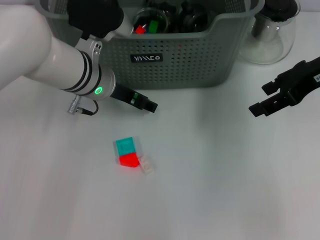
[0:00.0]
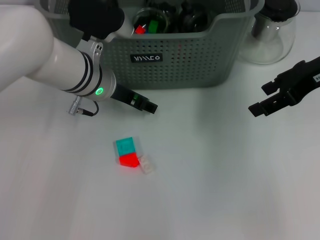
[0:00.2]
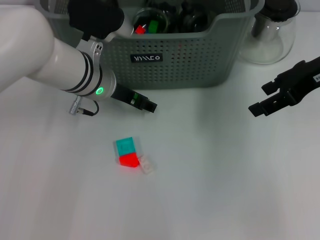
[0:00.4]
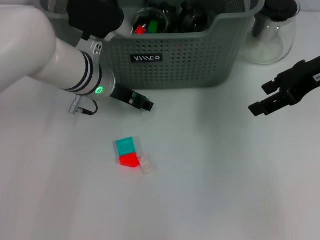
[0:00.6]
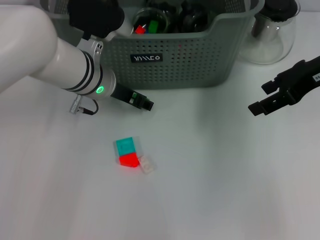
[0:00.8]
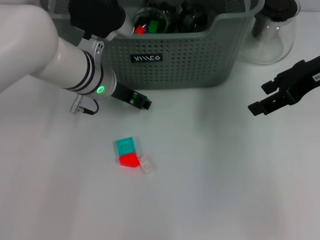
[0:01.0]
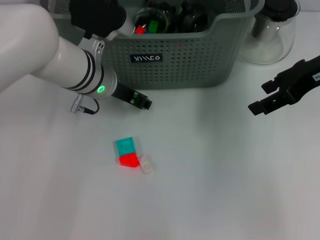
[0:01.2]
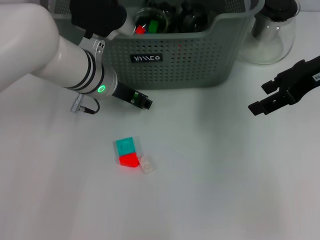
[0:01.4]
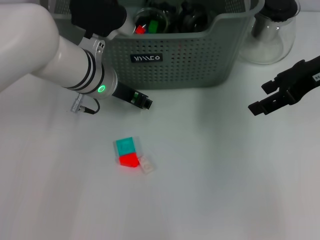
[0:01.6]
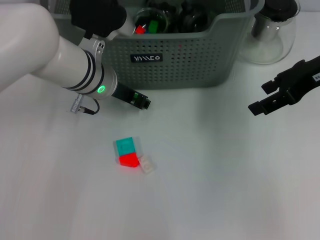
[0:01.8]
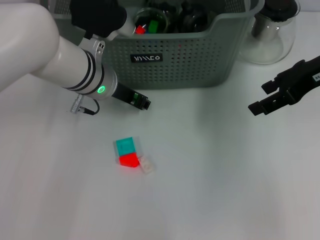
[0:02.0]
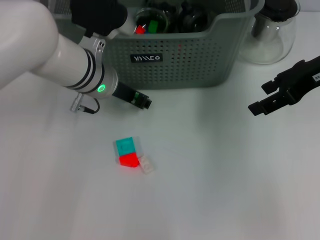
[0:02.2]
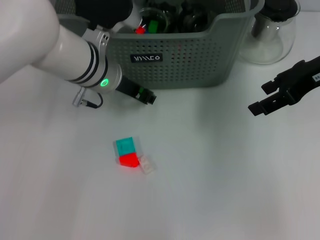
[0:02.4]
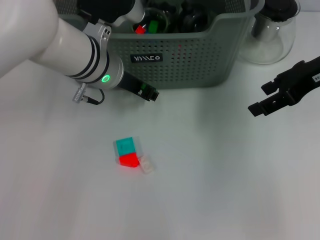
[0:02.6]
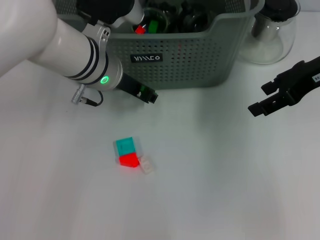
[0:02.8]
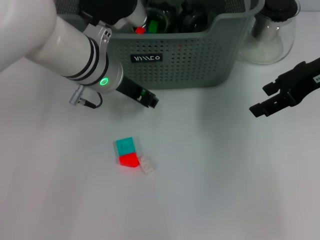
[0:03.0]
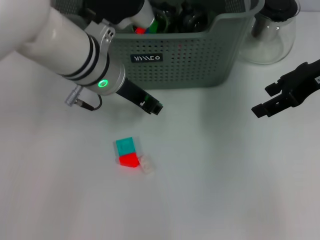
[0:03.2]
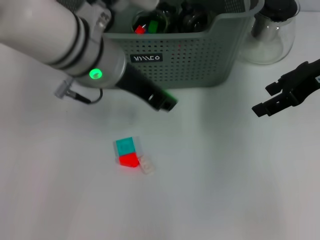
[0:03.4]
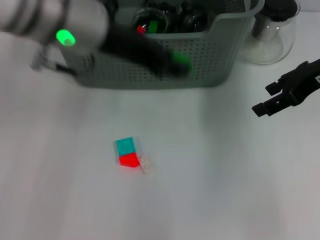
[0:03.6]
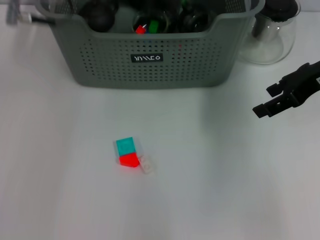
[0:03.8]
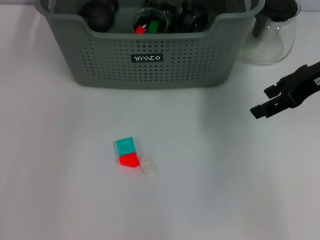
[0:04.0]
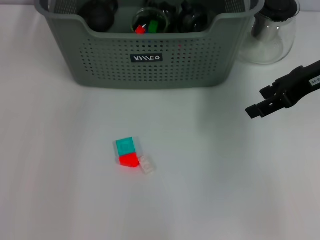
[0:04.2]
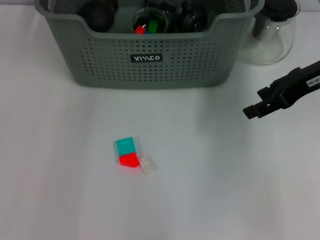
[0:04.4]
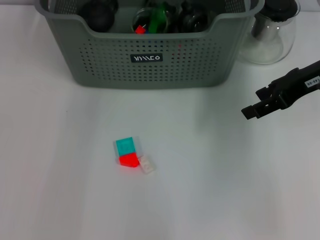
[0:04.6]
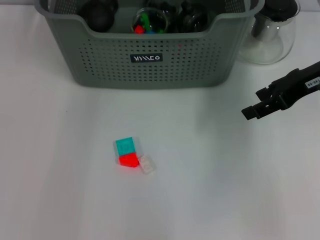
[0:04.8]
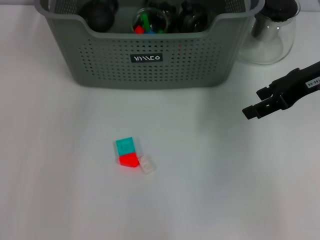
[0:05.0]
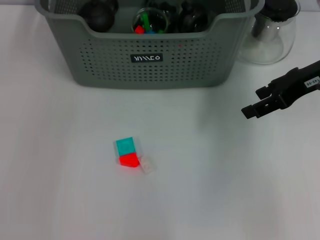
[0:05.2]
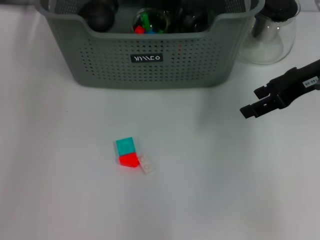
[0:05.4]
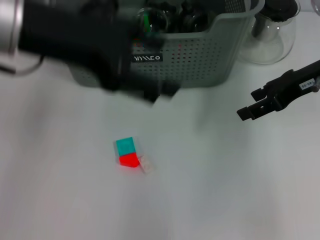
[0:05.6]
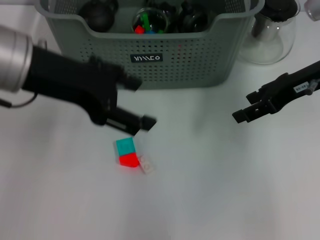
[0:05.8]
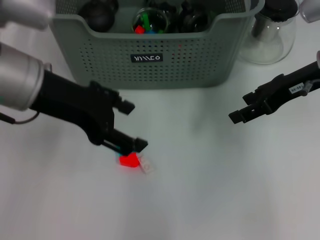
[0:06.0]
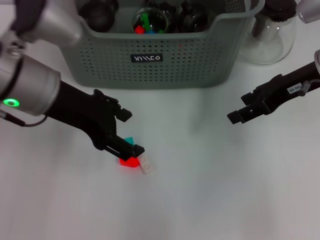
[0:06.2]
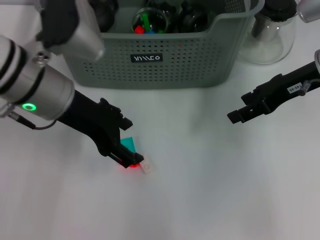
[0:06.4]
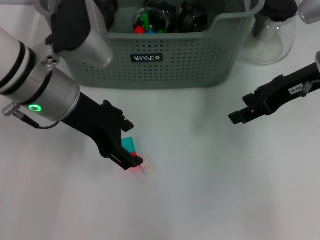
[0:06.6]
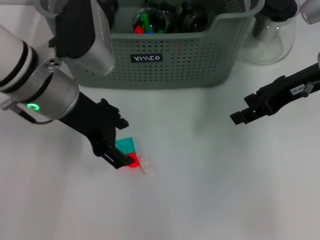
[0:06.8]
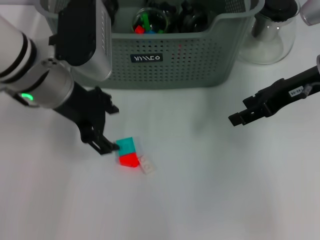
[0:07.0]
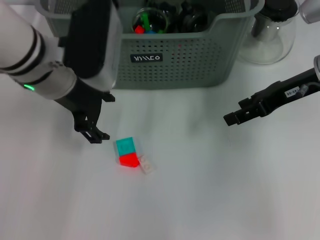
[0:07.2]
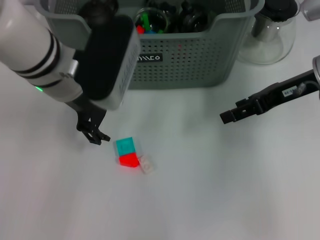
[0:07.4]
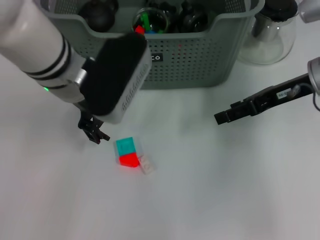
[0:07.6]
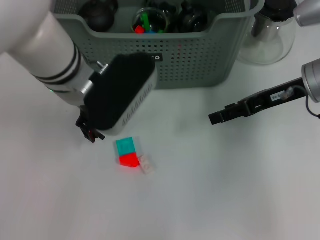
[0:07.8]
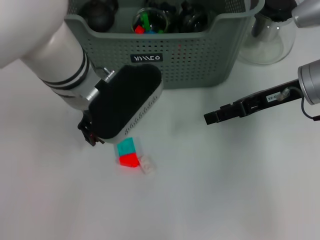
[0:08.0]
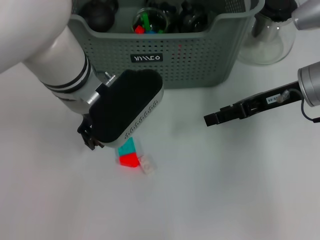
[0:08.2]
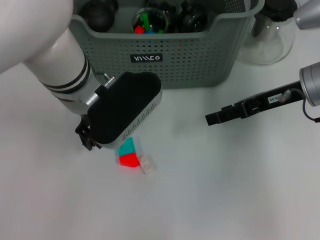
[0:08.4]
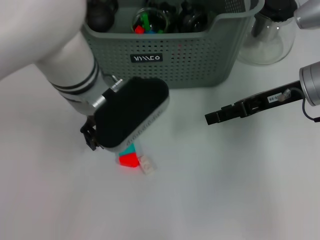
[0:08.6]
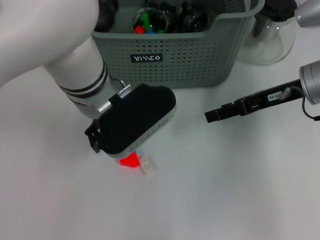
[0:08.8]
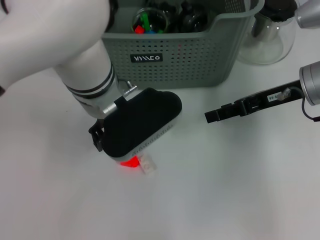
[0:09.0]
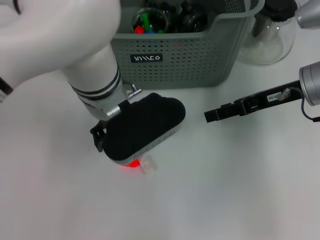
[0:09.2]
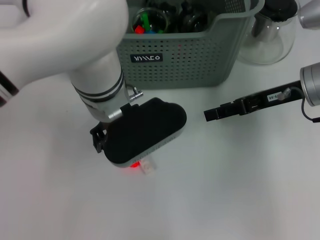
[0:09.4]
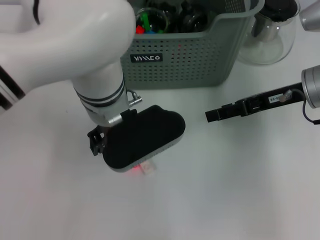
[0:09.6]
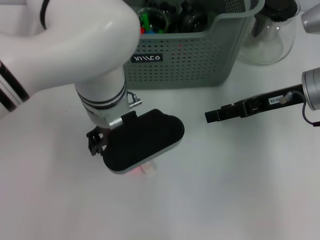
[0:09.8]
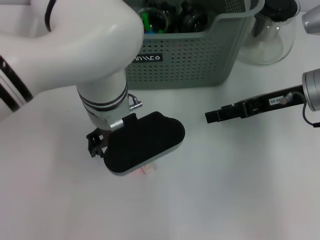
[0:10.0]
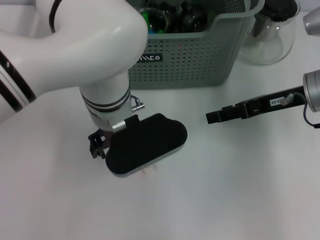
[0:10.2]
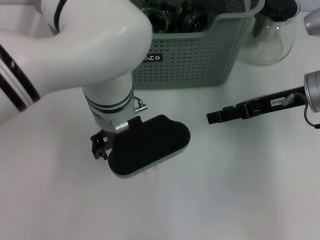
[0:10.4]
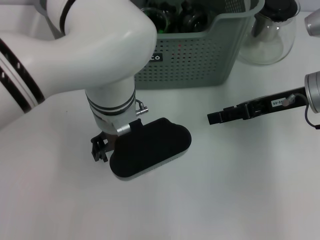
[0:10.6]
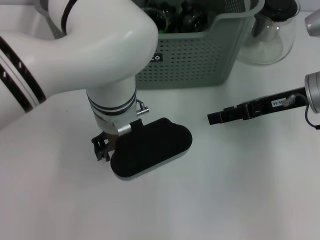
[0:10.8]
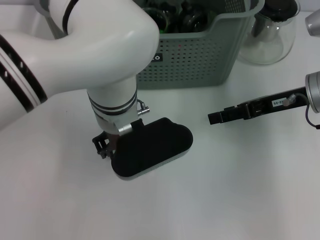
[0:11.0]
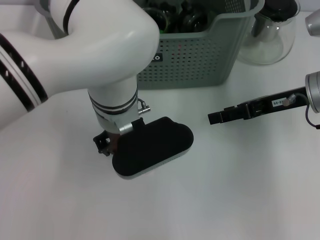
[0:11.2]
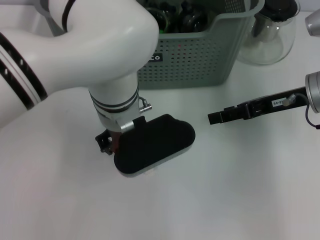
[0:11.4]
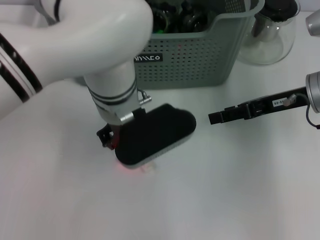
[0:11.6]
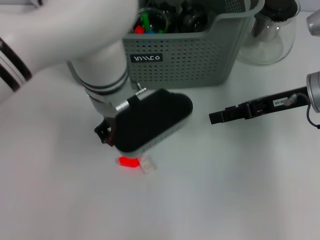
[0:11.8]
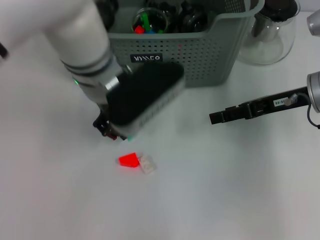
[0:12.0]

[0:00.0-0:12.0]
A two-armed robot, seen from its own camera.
Task of the whole recording: pick up the teacup on the table and place it into the storage bin, pick up the block on the table and place it into the storage bin.
Step, 0:02.0 to 0:04.6: Place the green block in the storage box with left gripper.
Step, 0:04.8 to 0:11.0: Grasp the light blue block with left gripper.
0:00.0 to 0:01.6: The left gripper closes.
0:01.6 to 0:03.0: The grippers move only a little.
0:03.0 to 0:04.4: The left gripper moves upward and forward, some 15 cm.
0:04.4 to 0:06.0: The left gripper is displaced backward by some 15 cm, and opens.
0:06.0 to 0:07.6: The left gripper shifts roughly 5 cm to the right.
0:10.4 to 0:12.0: The left gripper closes.

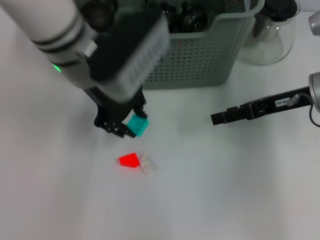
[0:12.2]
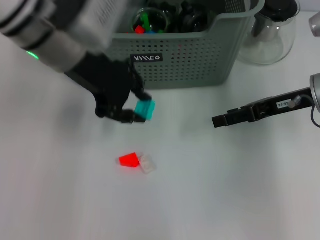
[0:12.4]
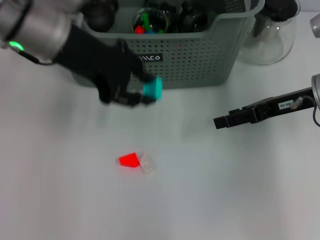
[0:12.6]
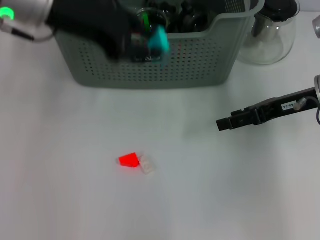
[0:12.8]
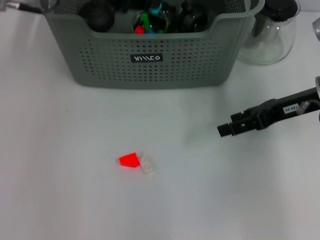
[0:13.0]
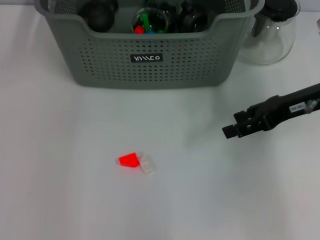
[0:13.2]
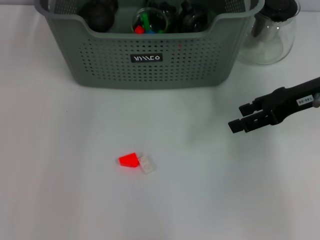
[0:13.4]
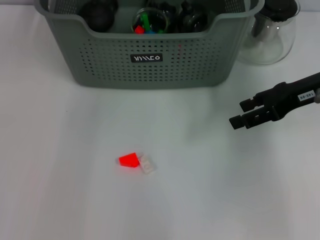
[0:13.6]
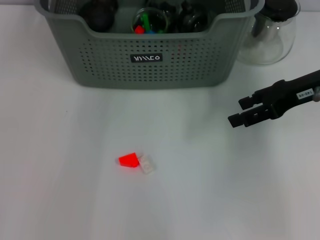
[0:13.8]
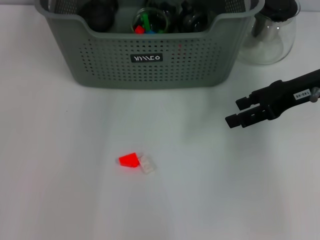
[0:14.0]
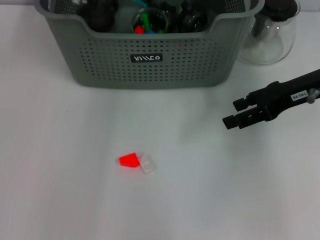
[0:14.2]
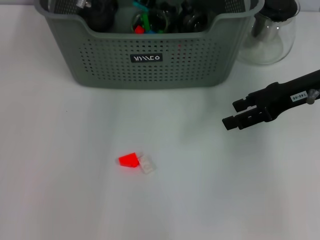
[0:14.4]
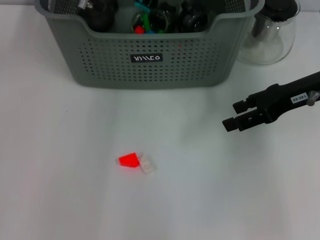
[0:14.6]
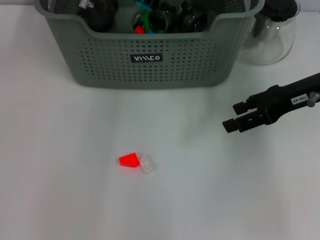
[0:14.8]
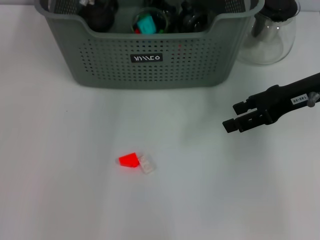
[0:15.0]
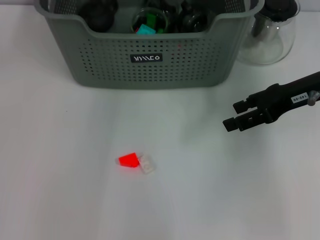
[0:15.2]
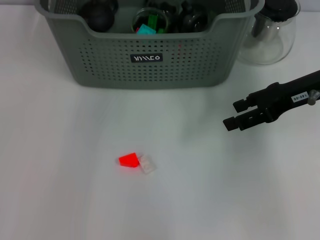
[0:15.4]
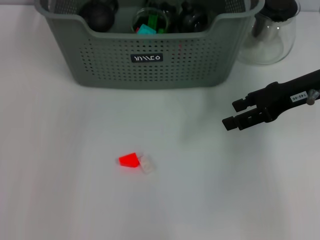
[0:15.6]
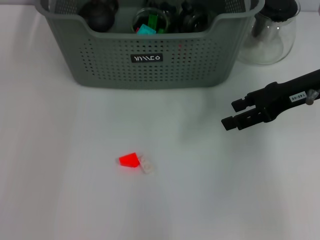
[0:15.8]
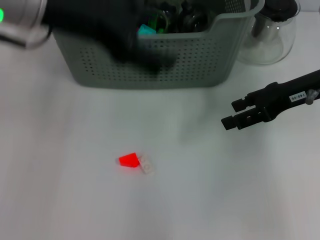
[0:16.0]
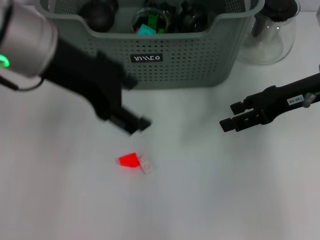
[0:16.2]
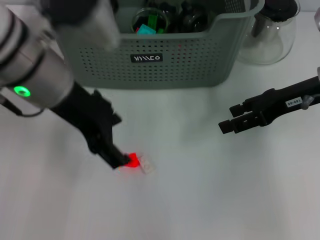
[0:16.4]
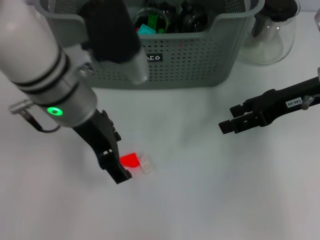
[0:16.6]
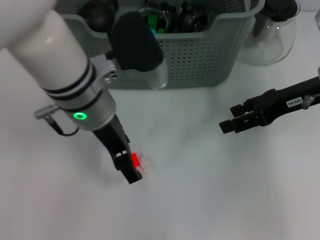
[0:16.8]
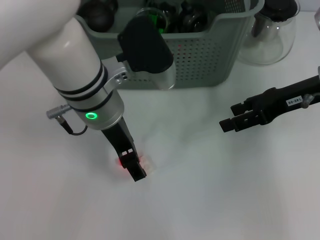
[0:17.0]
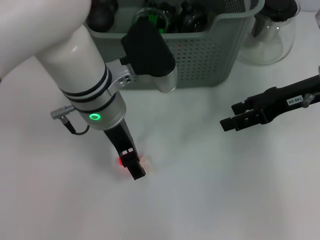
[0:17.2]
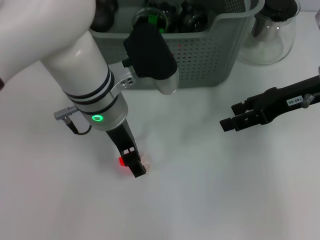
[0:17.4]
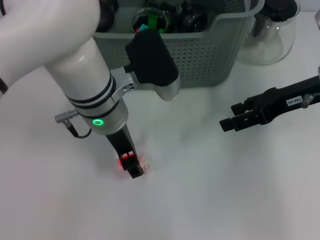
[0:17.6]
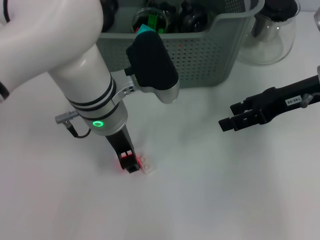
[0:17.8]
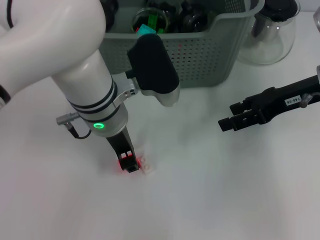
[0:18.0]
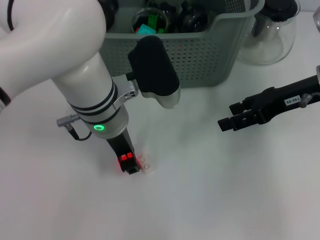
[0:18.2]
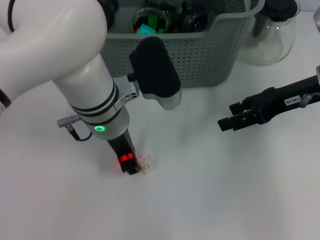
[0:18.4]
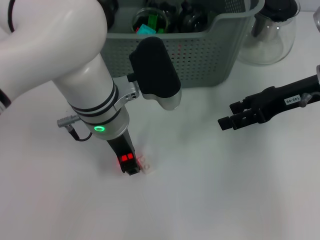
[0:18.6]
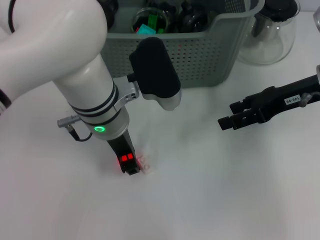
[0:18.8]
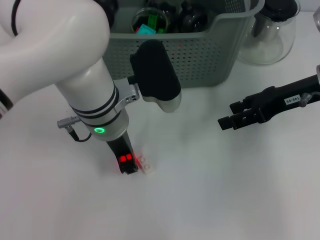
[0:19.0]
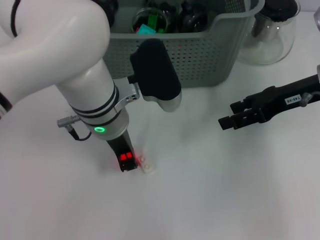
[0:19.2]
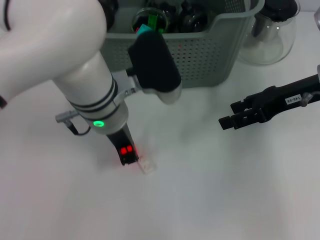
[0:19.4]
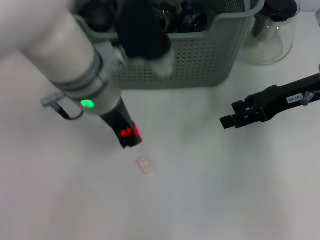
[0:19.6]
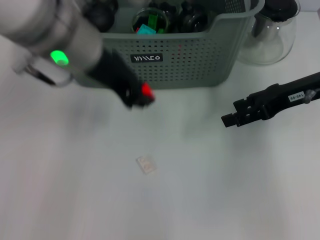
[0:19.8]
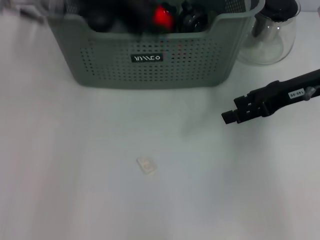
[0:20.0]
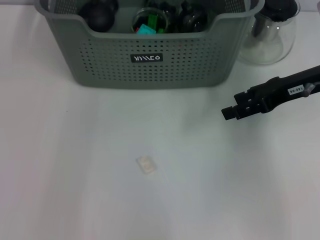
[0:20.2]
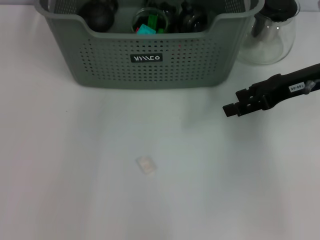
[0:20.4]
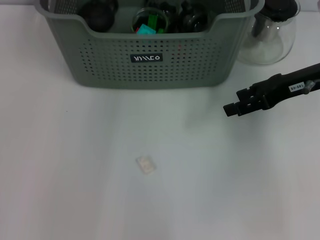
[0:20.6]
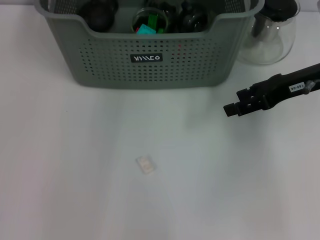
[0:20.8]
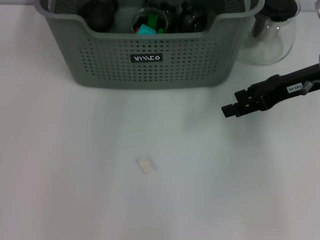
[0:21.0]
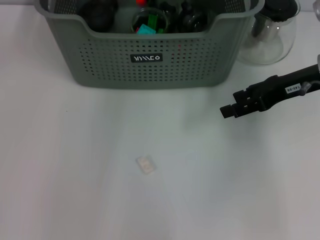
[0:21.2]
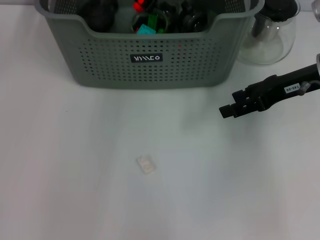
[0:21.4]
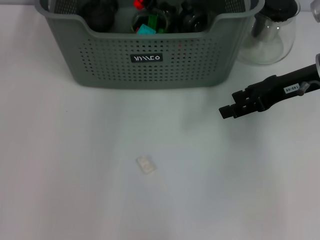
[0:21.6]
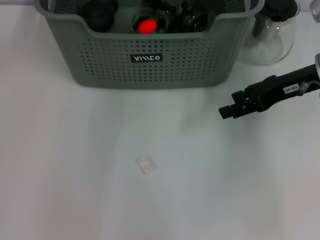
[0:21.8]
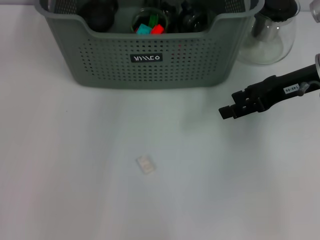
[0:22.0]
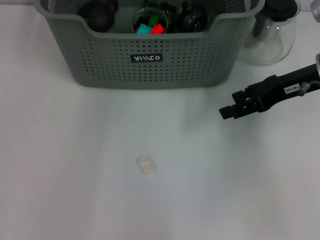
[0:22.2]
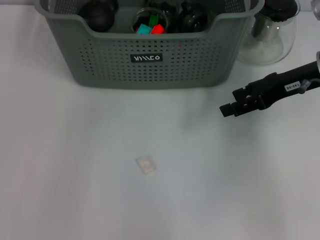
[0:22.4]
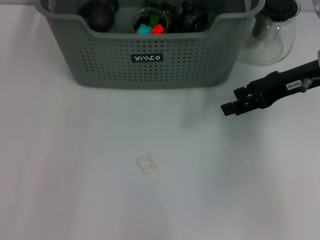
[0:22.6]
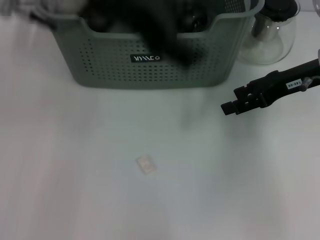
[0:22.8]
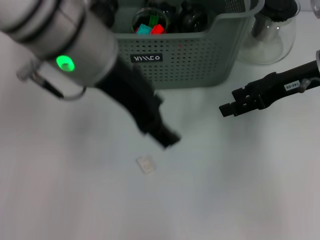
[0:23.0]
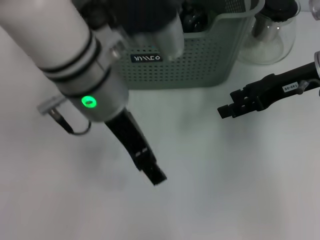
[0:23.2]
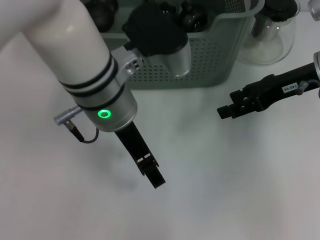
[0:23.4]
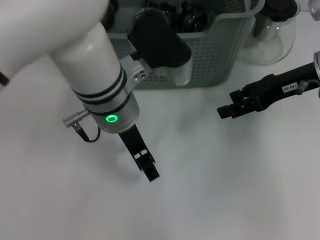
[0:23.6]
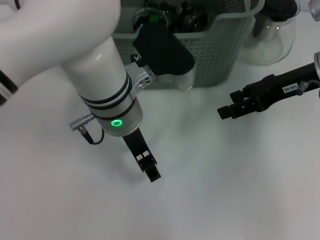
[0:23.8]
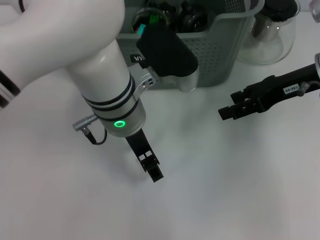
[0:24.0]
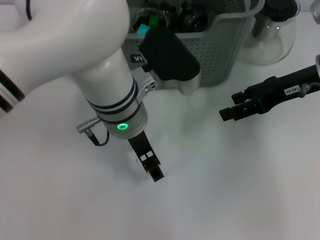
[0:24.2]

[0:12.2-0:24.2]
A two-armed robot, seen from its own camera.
Task of the whole recording: pick up the teacup on the table and place it into the storage bin, pick up the block on the table and place it into the storage bin.
Step, 0:12.2 to 0:15.0: Place the light blue block in the storage box with left gripper.
Step, 0:15.2 to 0:19.0: Grasp the orange block with left gripper.
Step, 0:19.4 to 0:21.6: Place the orange block in the storage box with left gripper.
0:12.2 to 0:13.8: The left gripper goes roughly 10 cm forward.
0:13.8 to 0:15.2: The grippers stay close to where they were, moving slightly.
0:15.2 to 0:16.6: The left gripper goes roughly 15 cm backward.
0:16.6 to 0:18.2: The left gripper is displaced downward by approximately 5 cm, and closes.
0:18.2 to 0:19.8: The left gripper is displaced upward by approximately 10 cm.
0:19.8 to 0:21.2: The left gripper heads forward, covering about 15 cm.
0:22.6 to 0:24.2: The left gripper heads downward, covering some 20 cm.
